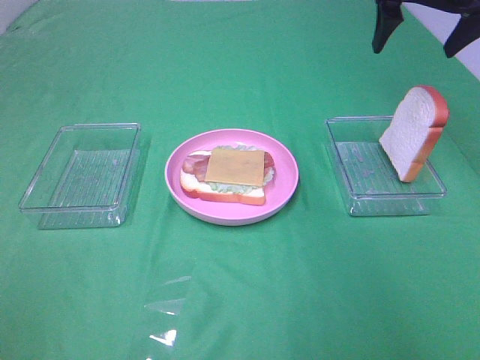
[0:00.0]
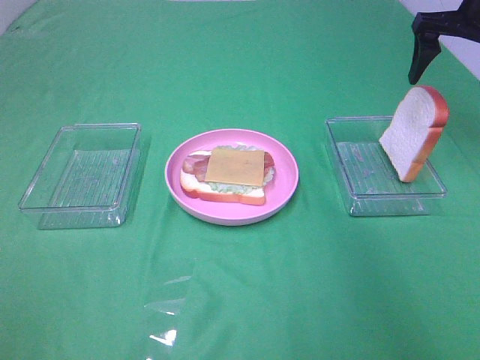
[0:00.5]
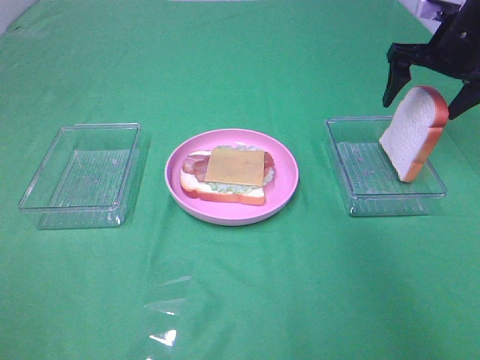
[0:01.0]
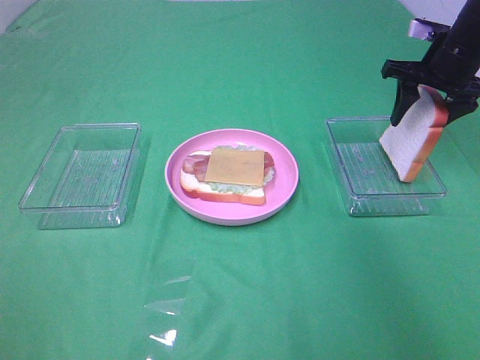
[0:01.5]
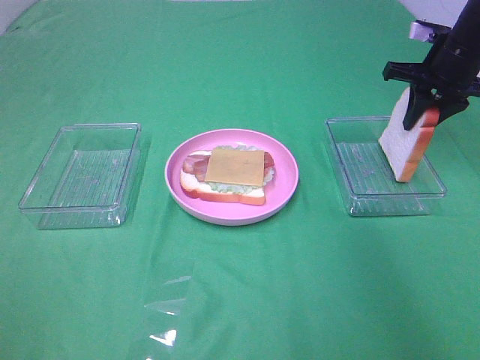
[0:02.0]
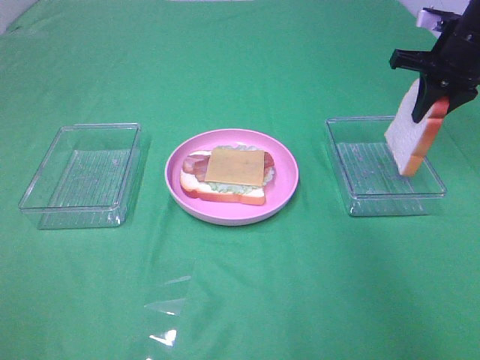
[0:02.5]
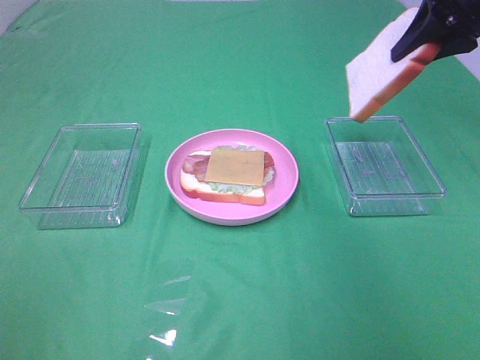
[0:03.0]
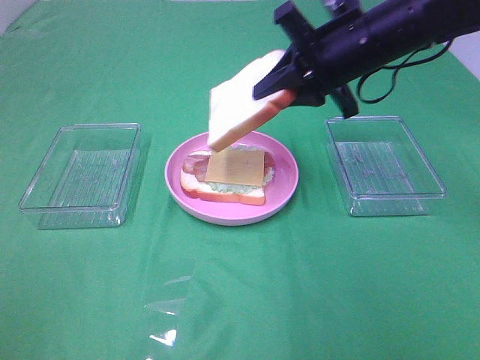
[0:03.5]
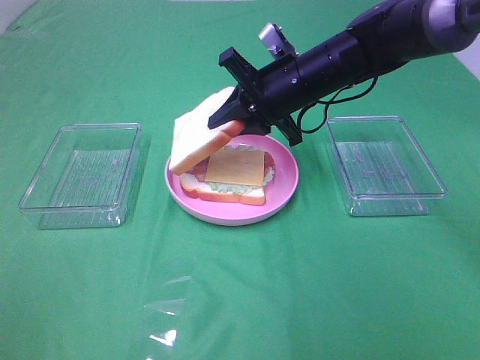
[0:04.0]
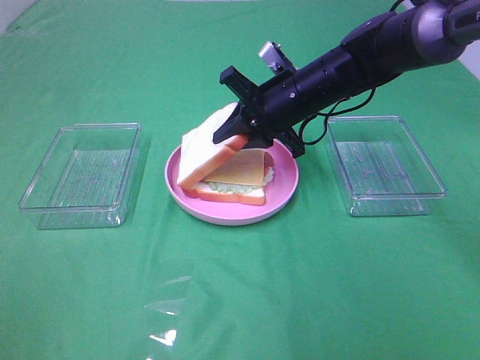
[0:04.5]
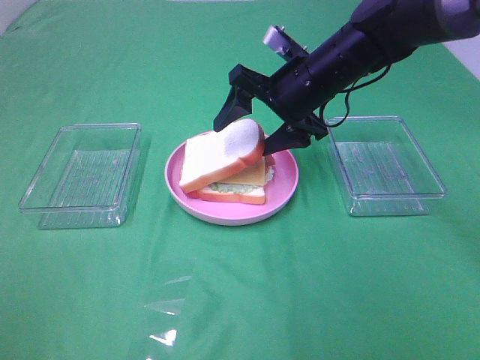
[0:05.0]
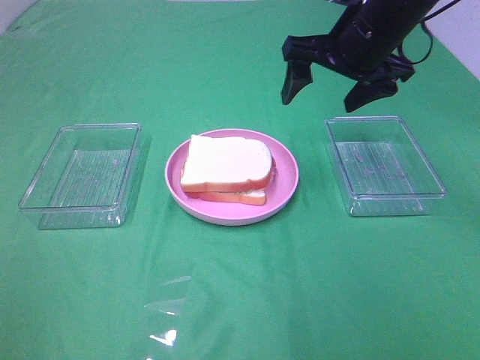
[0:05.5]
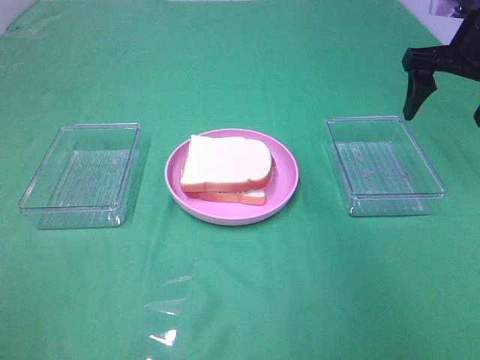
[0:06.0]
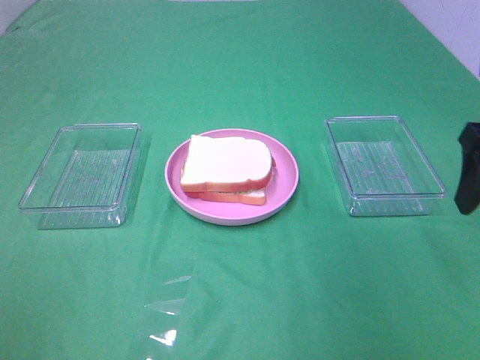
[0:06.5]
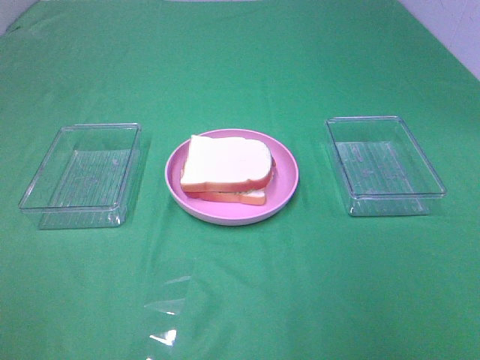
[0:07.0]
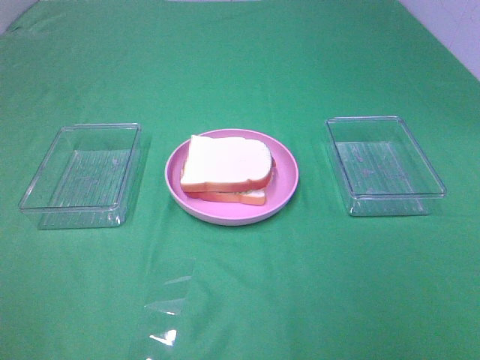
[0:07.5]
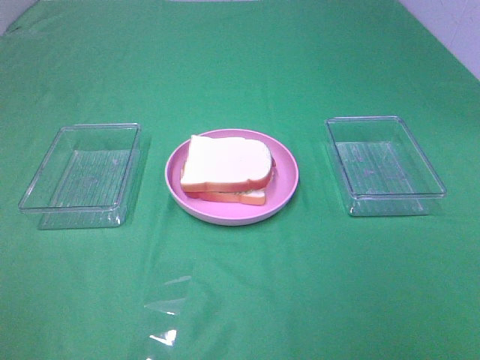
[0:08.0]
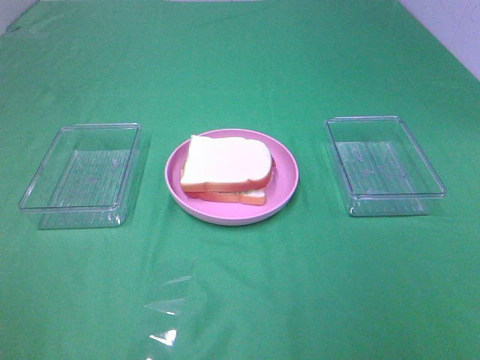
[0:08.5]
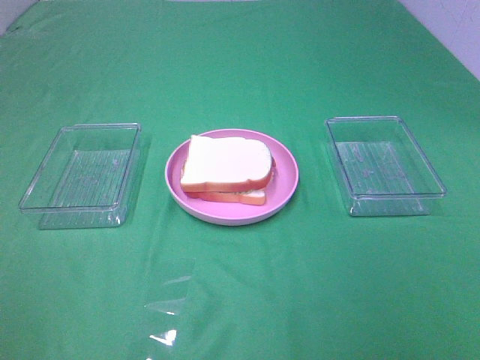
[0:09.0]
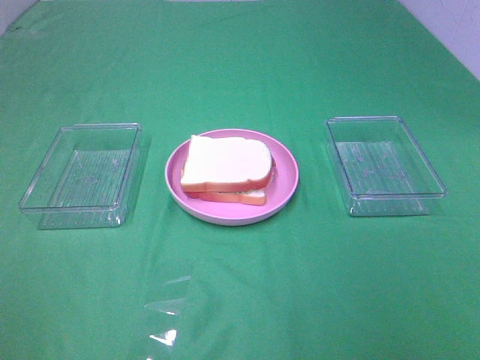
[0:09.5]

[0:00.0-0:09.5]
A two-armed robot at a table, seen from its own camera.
Task of the whole recording: Make sandwiches.
Step, 0:00.0 to 0:02.0: Right hand:grab the bread slice.
Step, 0:02.5 to 0:05.0: Right hand:place the bread slice on the cheese slice.
0:00.0 to 0:02.0: The right gripper moves downward, some 10 cm, and closes up.
0:02.0 to 0:04.0: The right gripper moves to the left, some 20 cm.
0:04.0 to 0:05.5: The right gripper moves upward and to the right, about 10 cm, and opens up.
0:05.5 to 0:07.5: The right gripper goes about 40 cm backward.
